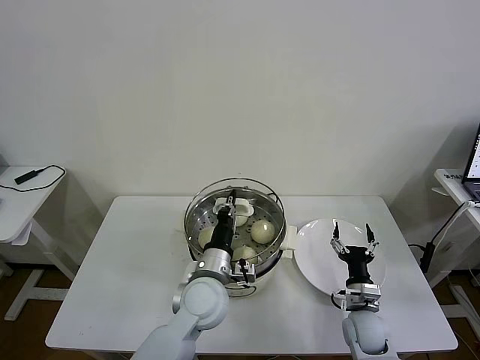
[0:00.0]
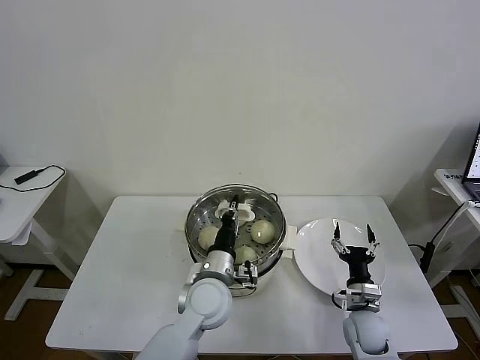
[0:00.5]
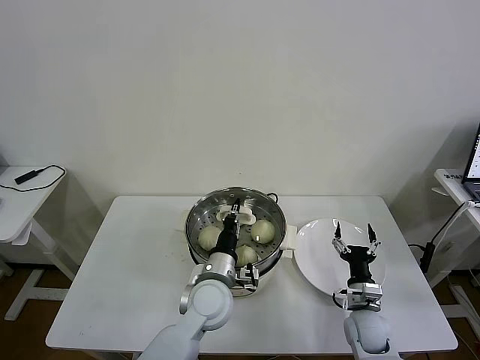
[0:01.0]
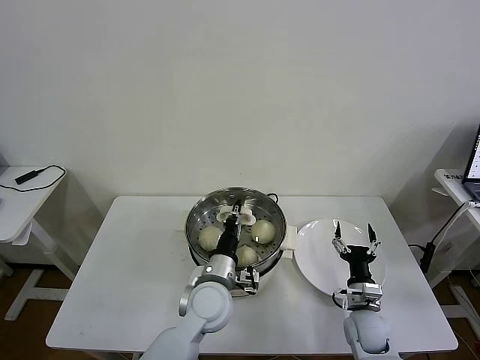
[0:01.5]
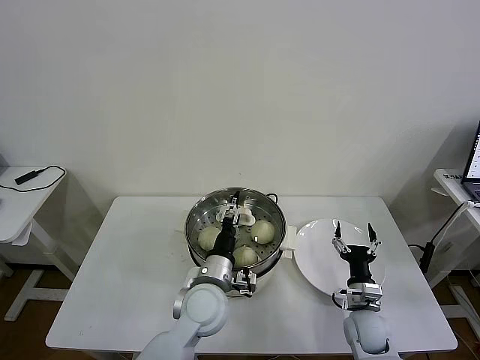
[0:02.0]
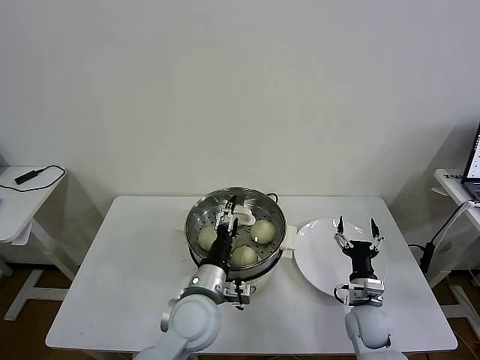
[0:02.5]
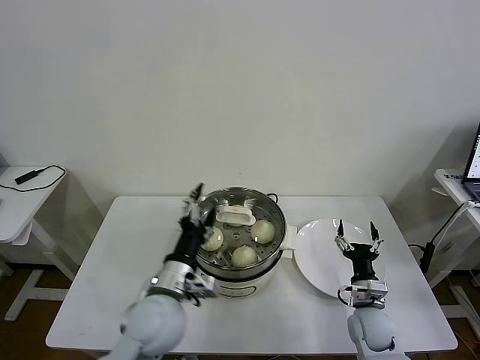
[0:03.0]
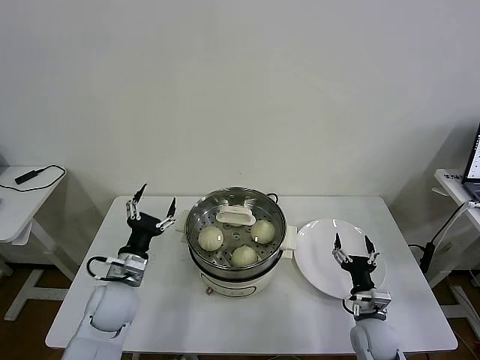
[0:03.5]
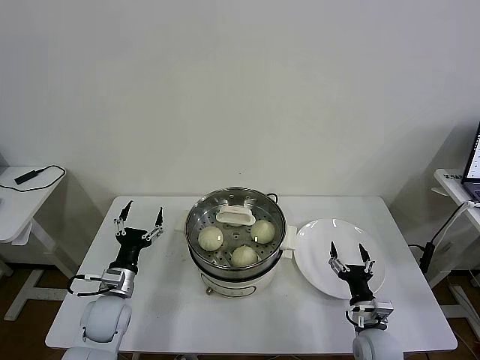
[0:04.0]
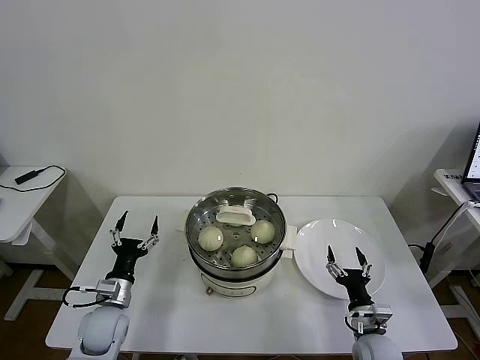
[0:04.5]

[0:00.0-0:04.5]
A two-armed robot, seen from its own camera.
Task of the whole recording: take steamed baozi put them in steamer then cover it.
0:00.0 to 0:02.0: The left gripper opens up.
0:02.0 to 0:04.5: The right gripper moves approximately 5 cm. Meanwhile the left gripper heads to the left, covering approximately 25 cm.

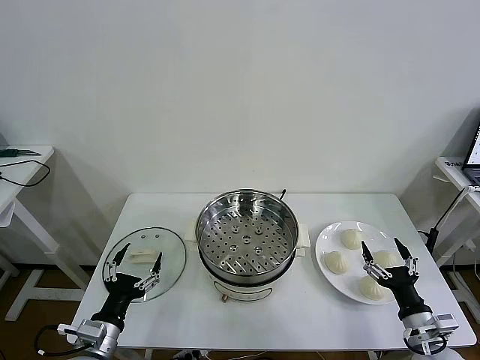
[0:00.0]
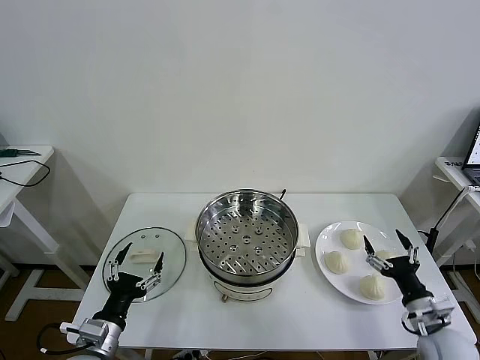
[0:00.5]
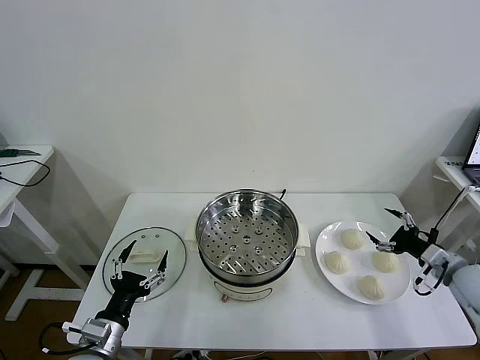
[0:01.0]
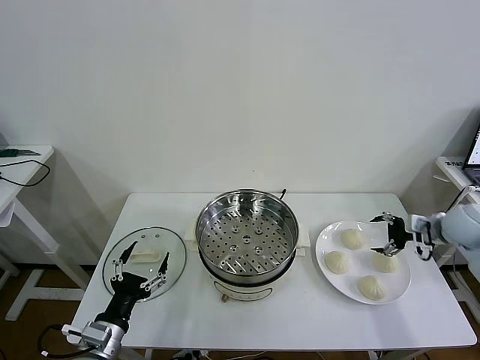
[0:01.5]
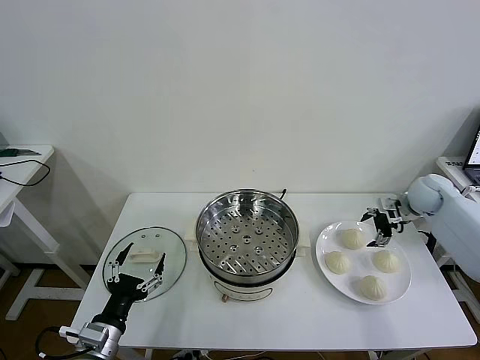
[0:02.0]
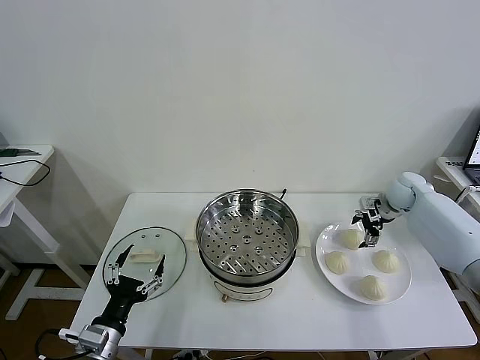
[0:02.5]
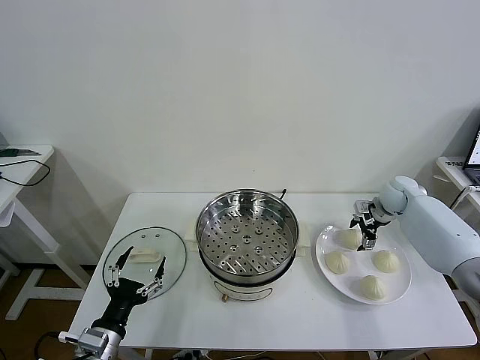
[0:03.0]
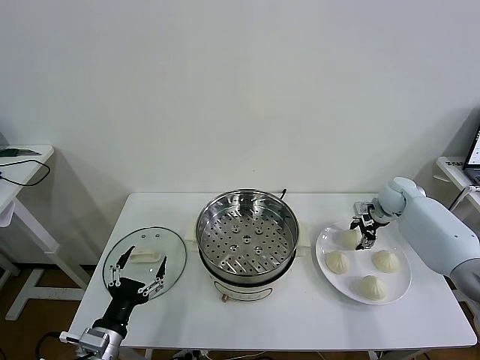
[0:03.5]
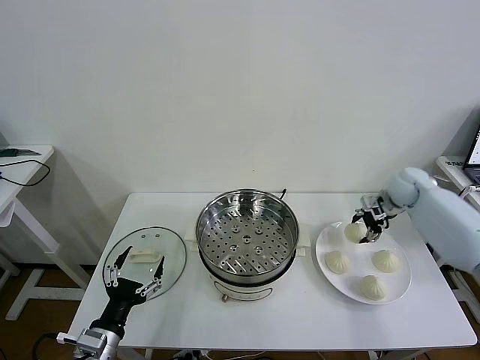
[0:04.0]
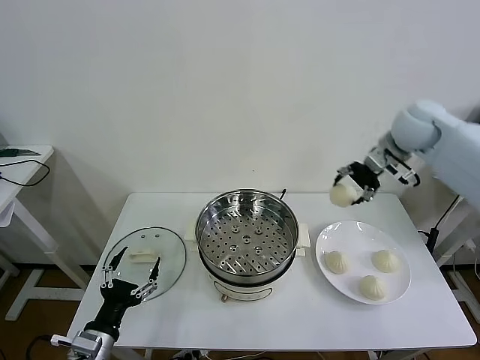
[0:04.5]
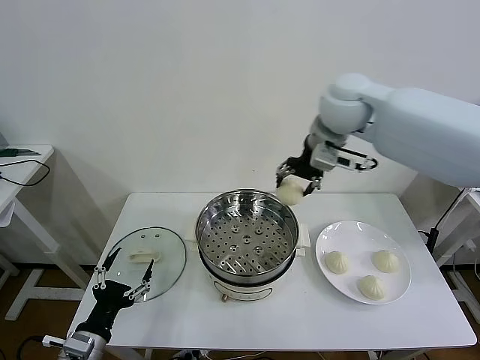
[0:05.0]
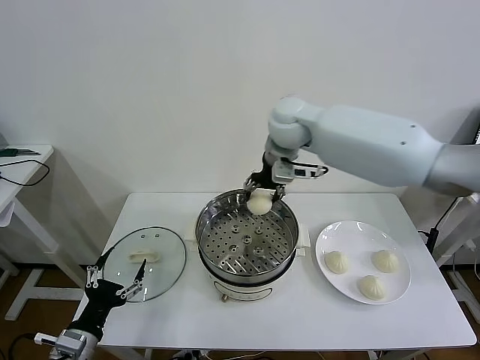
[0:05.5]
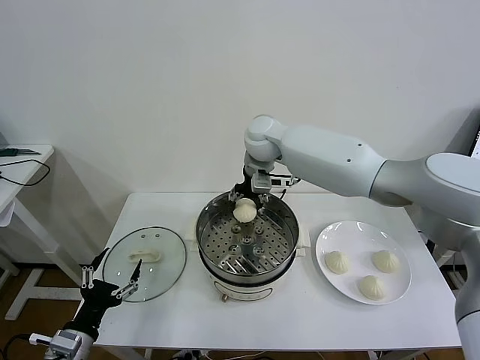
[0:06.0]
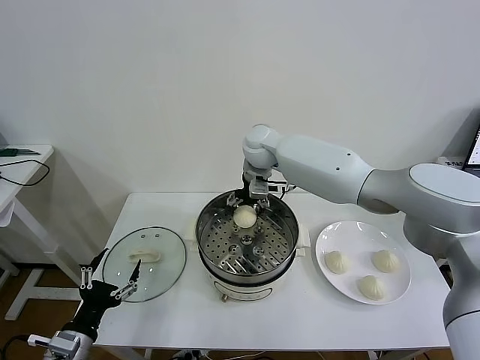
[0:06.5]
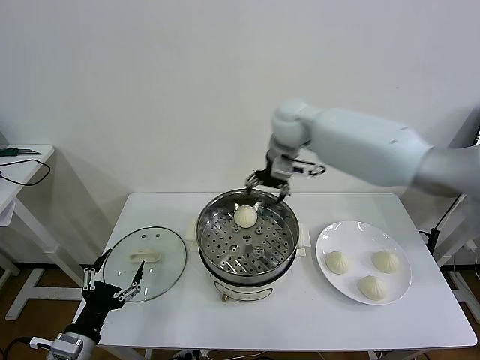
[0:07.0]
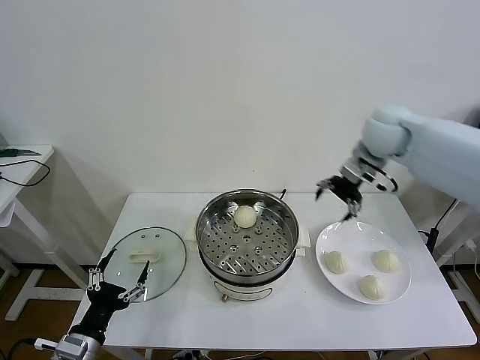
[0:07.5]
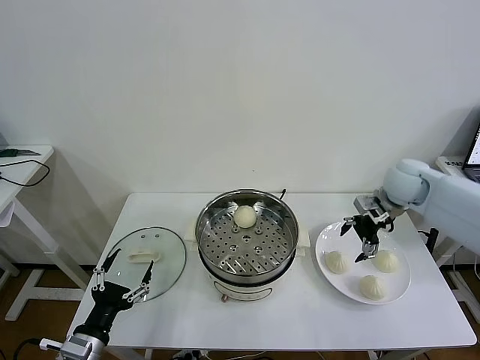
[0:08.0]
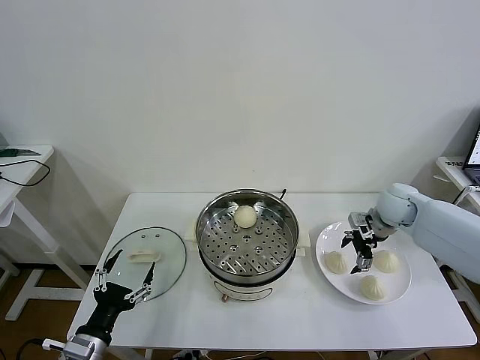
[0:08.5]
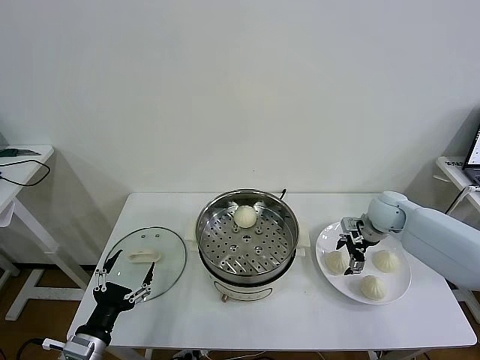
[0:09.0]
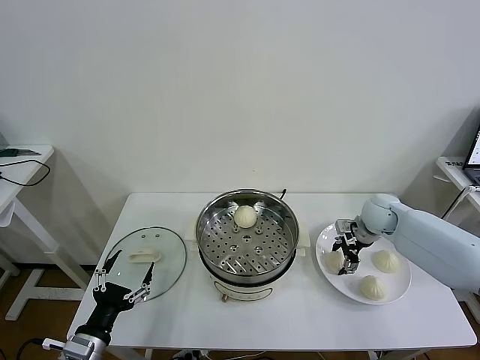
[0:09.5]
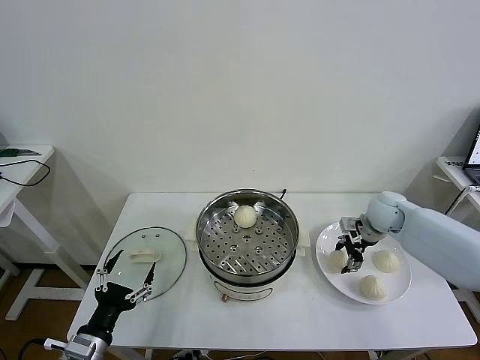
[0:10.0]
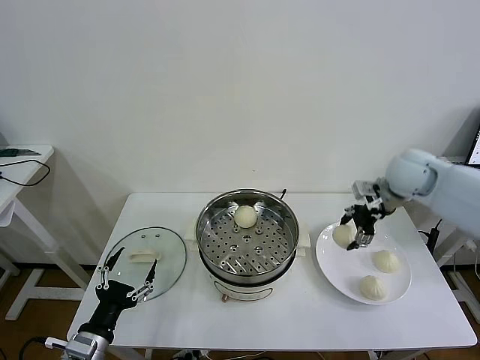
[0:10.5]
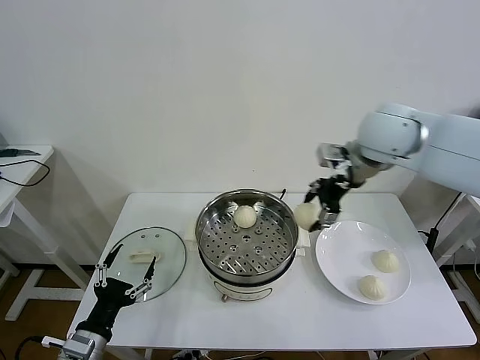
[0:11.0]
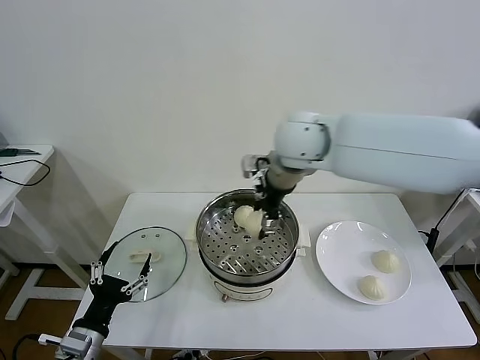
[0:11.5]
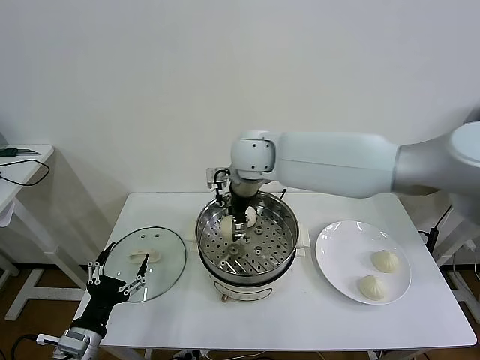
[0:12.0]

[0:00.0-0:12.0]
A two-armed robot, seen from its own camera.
Task of the whole recording: take steamed baozi put them in steamer then cover it.
Step, 0:00.0 to 0:03.5: Grasp the baozi in the plate with right gripper.
Step, 0:04.0 to 0:06.5: Place the baozi on the steamer with right gripper.
Step, 0:07.0 to 0:09.5: Grasp the baozi in the plate with right gripper.
0:02.0 to 0:04.0: The right gripper moves roughly 5 cm, and closes up.
0:04.0 to 0:06.0: The right gripper is displaced to the left by some 40 cm.
0:06.0 to 0:08.0: The right gripper travels to the right by approximately 30 cm, and opens up.
0:08.0 to 0:10.0: The right gripper travels downward by roughly 5 cm, and closes up.
0:10.0 to 0:12.0: The right gripper shifts some 40 cm to the left and upward.

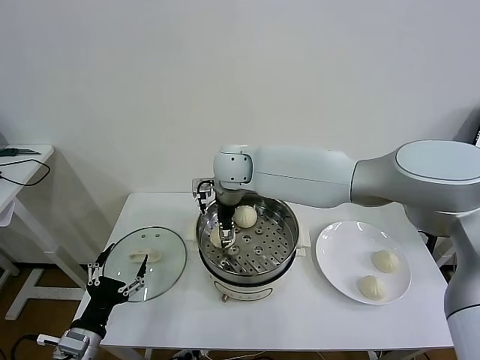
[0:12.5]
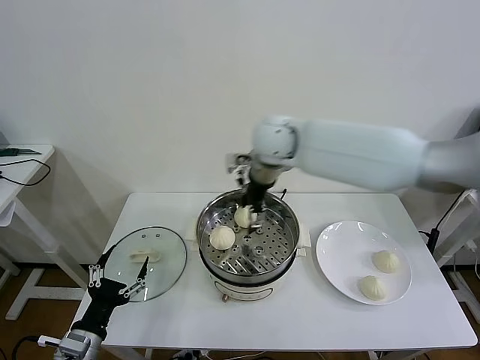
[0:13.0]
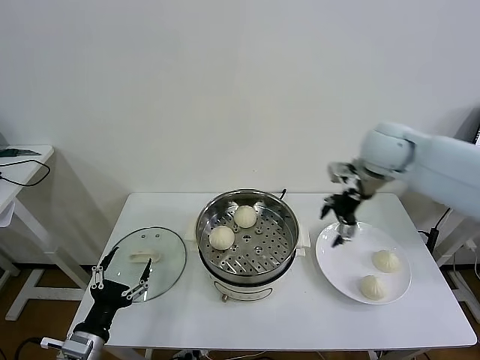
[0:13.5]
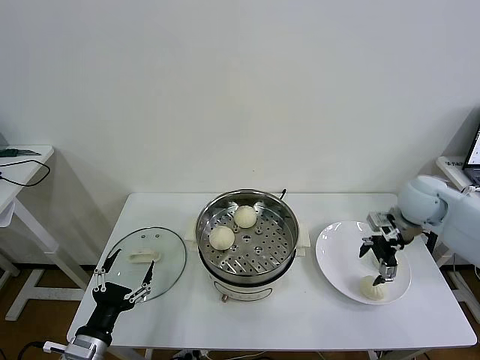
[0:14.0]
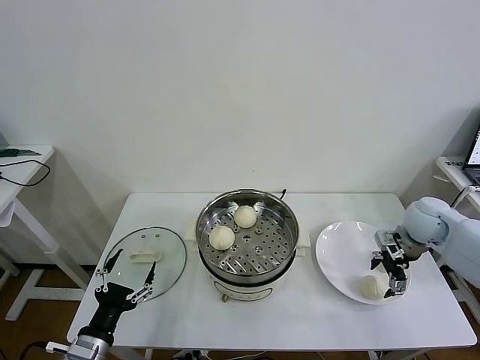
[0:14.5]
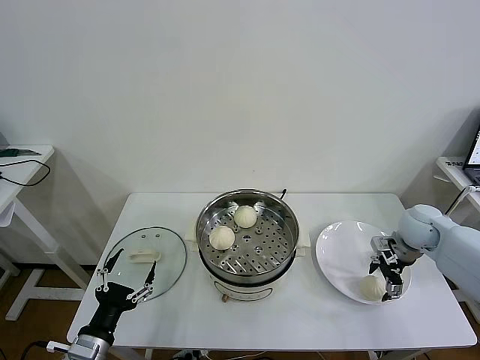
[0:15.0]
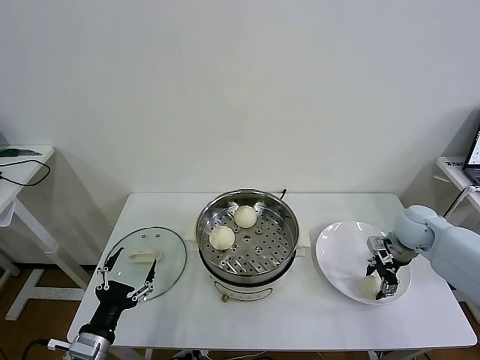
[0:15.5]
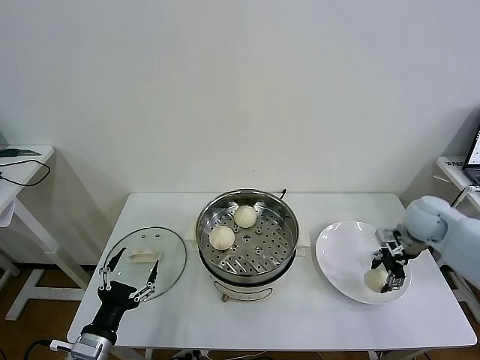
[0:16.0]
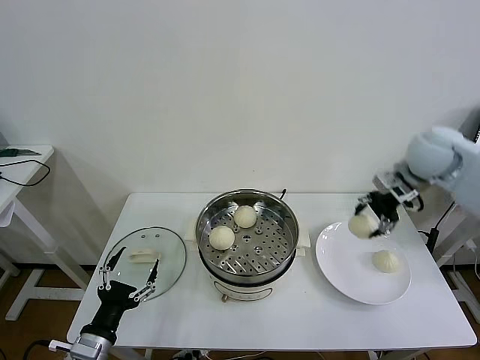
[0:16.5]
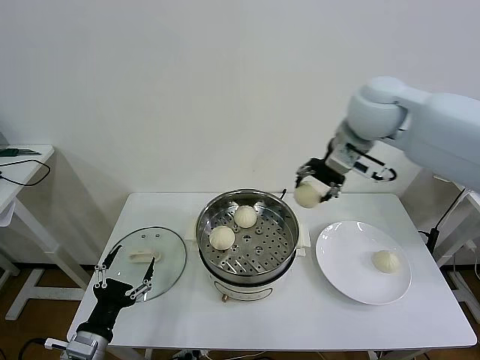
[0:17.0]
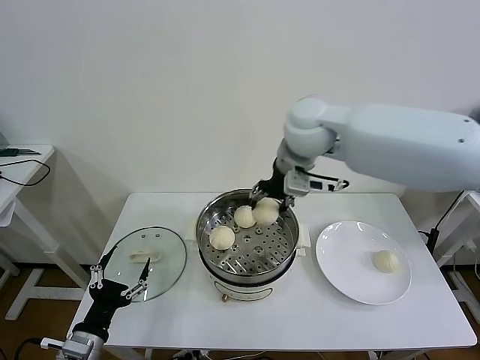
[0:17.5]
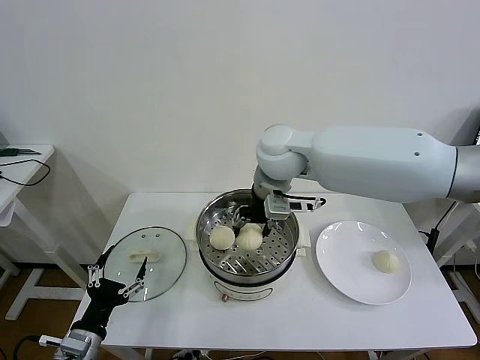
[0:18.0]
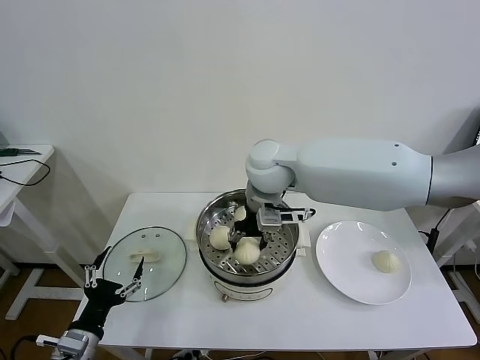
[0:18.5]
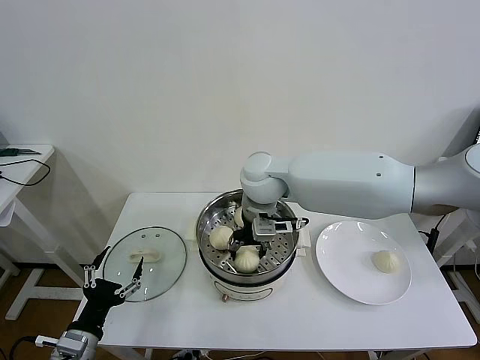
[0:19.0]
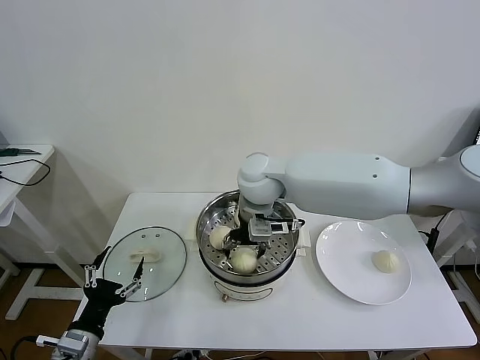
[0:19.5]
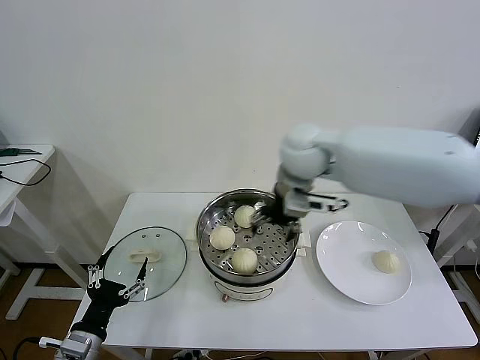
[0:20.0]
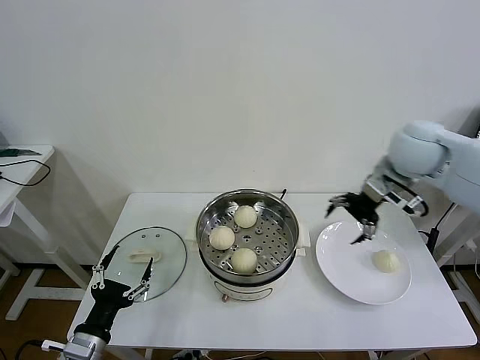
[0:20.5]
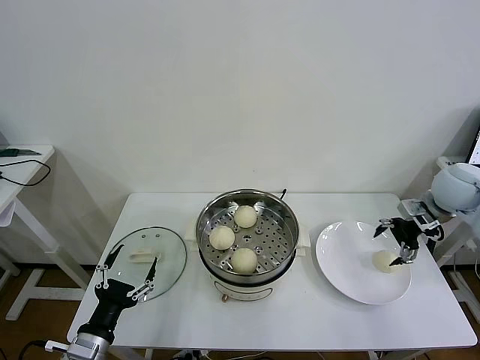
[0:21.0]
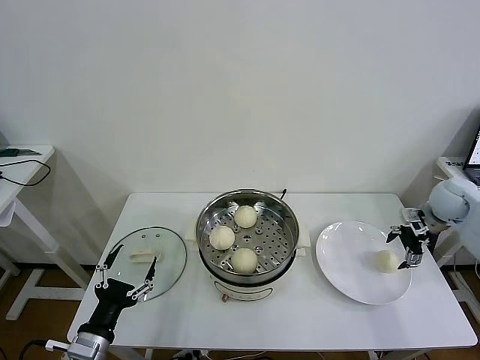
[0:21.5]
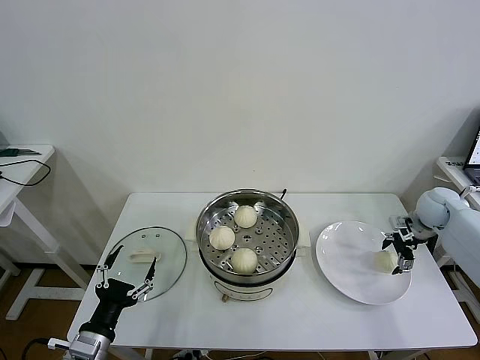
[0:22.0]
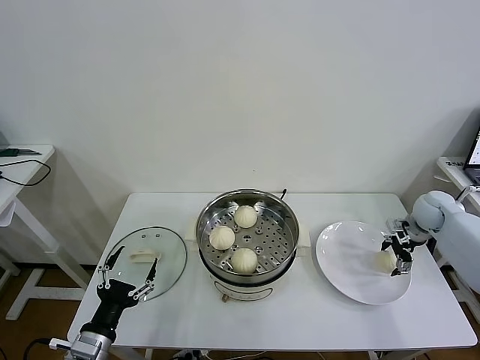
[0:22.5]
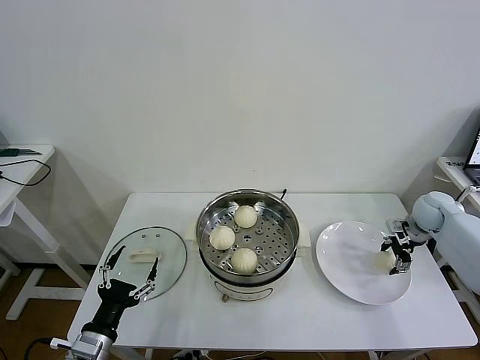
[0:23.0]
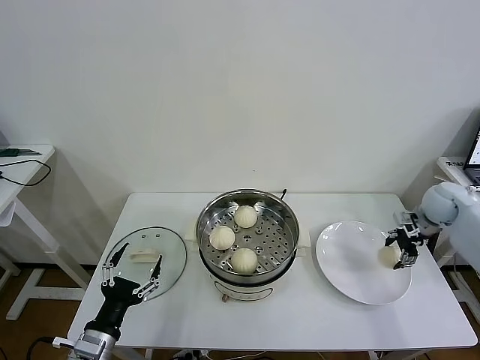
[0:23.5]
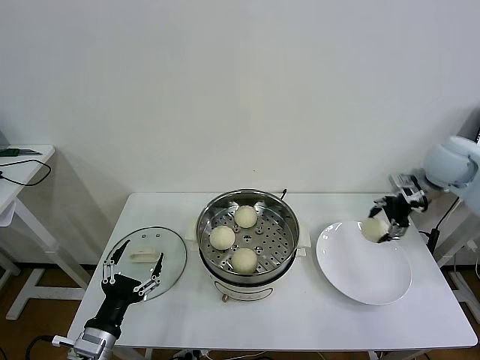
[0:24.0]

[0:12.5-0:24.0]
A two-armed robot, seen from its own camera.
Task of the whole recording: take steamed baozi put them in steamer then cover it.
Step, 0:13.0 to 0:15.5: Grasp the baozi in the plate with right gripper.
Step, 0:16.0 to 0:19.5: Place the baozi on the steamer with right gripper.
Step, 0:20.0 to 0:23.0: Grasp the baozi in the plate with right gripper.
0:12.5 to 0:14.5: The right gripper shifts approximately 40 cm to the right.
0:14.5 to 0:16.5: The right gripper heads upward, covering about 20 cm, and closes.
0:16.5 to 0:18.5: The right gripper heads to the left, covering approximately 30 cm.
0:18.5 to 0:20.0: The right gripper heads to the right, covering approximately 10 cm, and opens up.
0:20.0 to 0:22.0: The right gripper is displaced to the right and downward by roughly 40 cm.
0:22.0 to 0:24.0: The right gripper travels upward and to the left by approximately 20 cm, and closes its fingers.